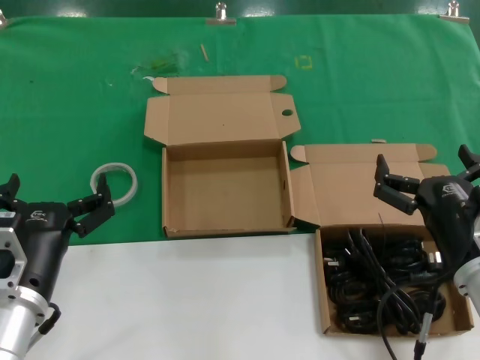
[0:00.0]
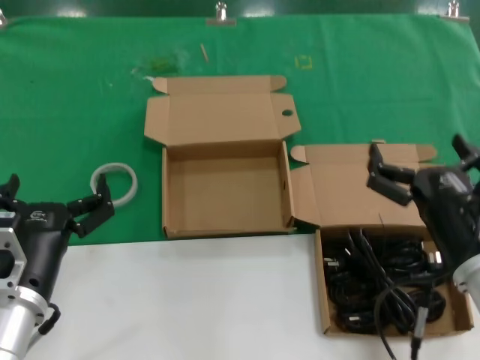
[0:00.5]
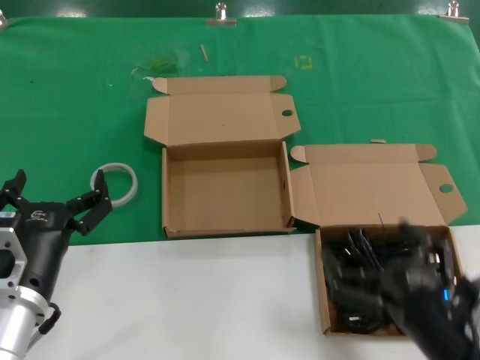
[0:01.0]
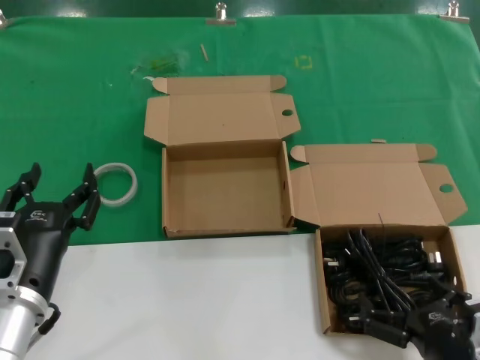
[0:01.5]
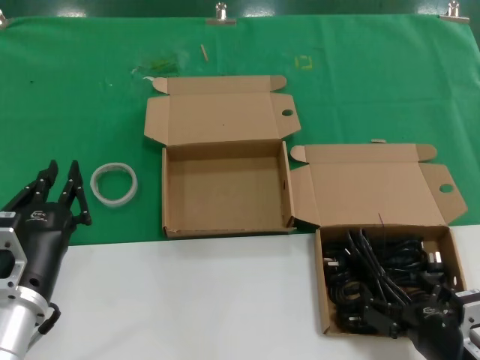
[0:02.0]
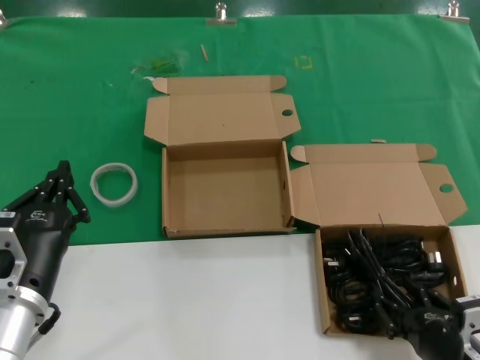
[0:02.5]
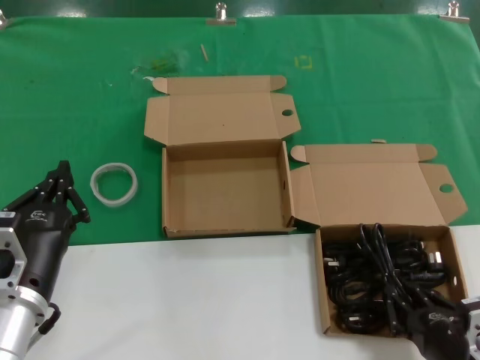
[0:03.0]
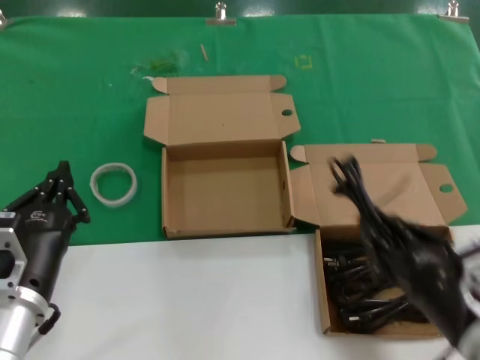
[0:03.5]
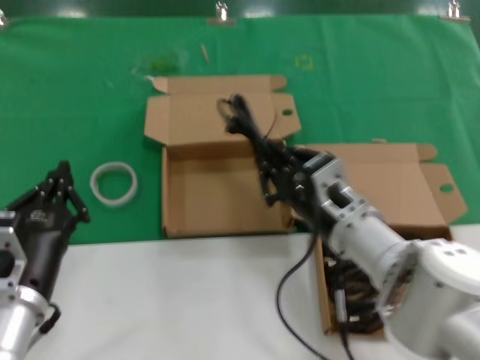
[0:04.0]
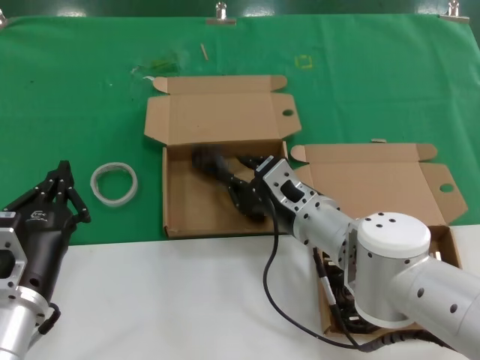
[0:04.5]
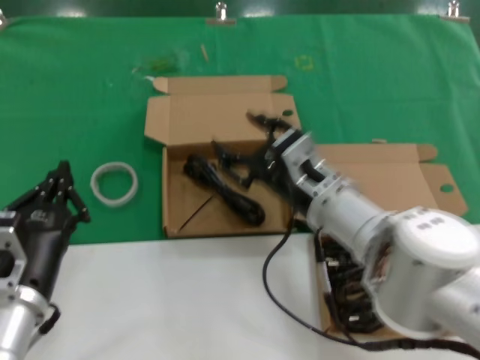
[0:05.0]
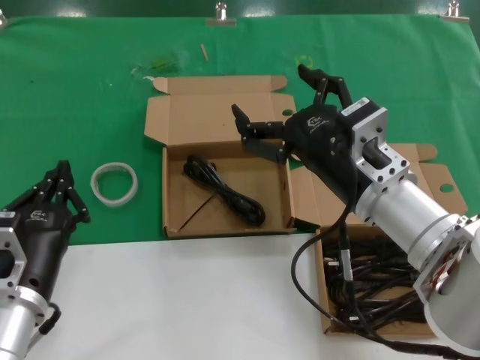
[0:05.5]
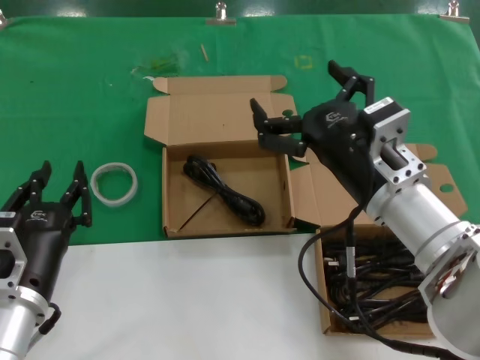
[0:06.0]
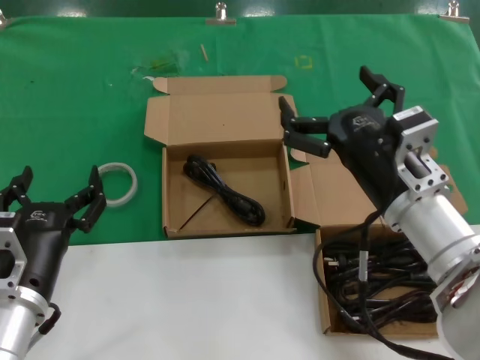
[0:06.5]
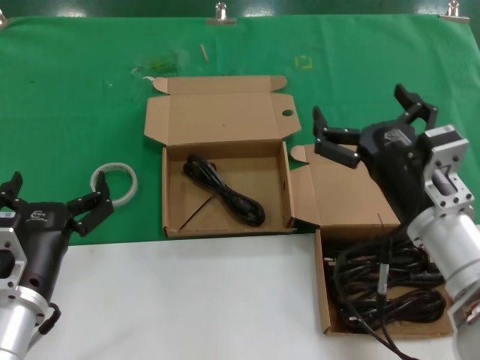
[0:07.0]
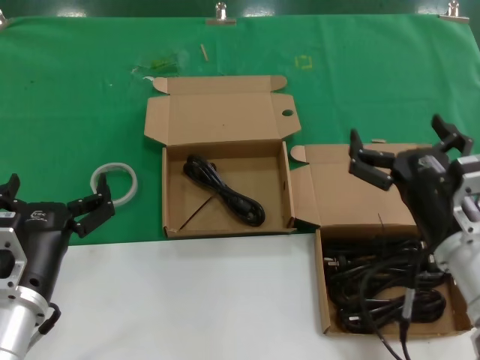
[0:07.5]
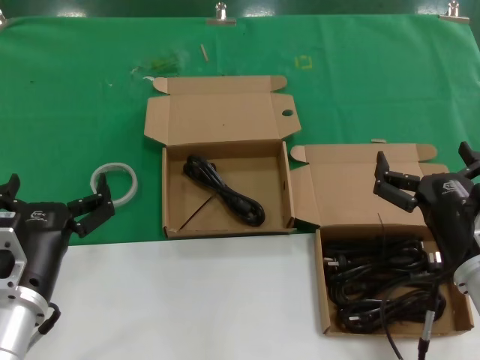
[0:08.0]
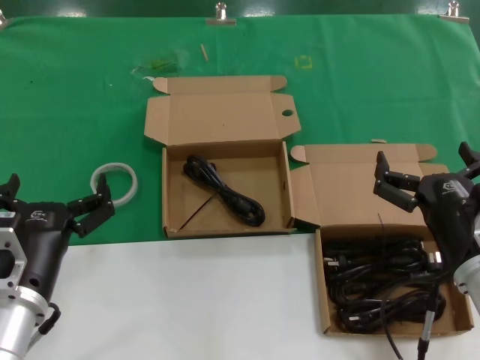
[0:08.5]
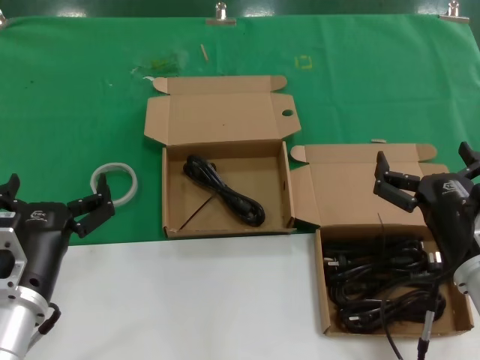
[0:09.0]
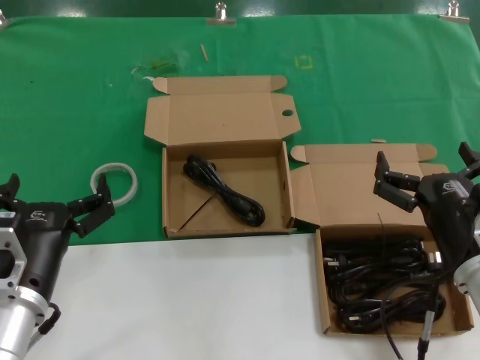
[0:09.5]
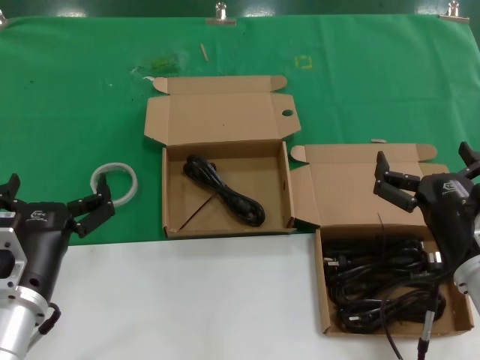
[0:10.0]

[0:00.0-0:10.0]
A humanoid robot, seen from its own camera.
Task of the whole recording: Pick up the power cord from the box containing it and place it in another box.
Step, 0:00.0 to 0:03.0: Grasp the data cable.
Step, 0:03.5 to 0:05.0: Place the data cable in the another box.
0:00.0 to 0:02.0: The right hand moves backward and downward, approximately 10 cm.
0:02.0 to 0:04.0: The right hand shifts approximately 20 cm forward, to the left and upward.
0:04.0 to 0:06.0: The right hand travels upward by some 5 cm.
0:06.0 to 0:08.0: The right hand travels to the right and downward by roughly 10 cm.
0:08.0 to 0:10.0: The two hands keep their place.
